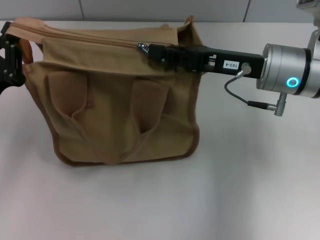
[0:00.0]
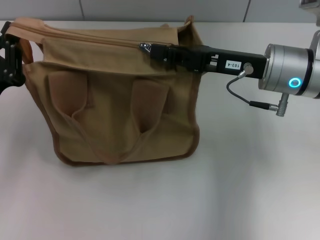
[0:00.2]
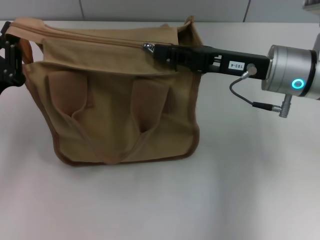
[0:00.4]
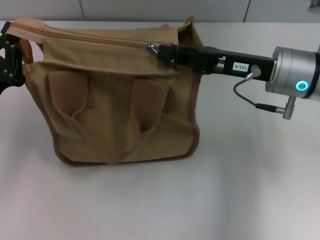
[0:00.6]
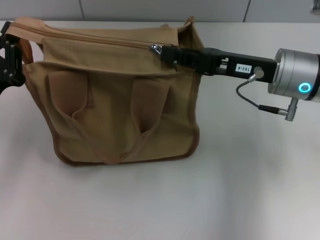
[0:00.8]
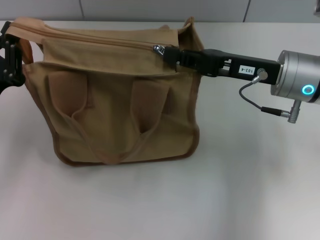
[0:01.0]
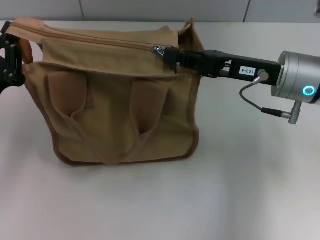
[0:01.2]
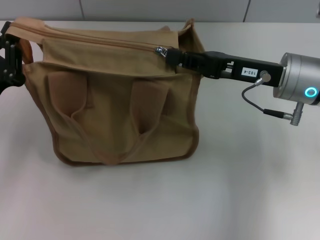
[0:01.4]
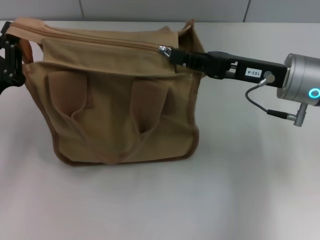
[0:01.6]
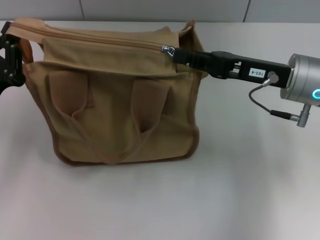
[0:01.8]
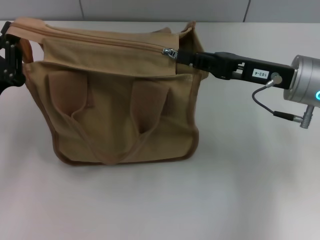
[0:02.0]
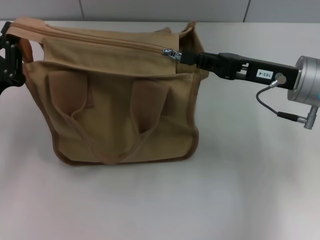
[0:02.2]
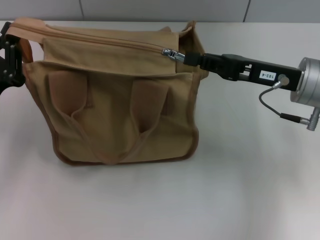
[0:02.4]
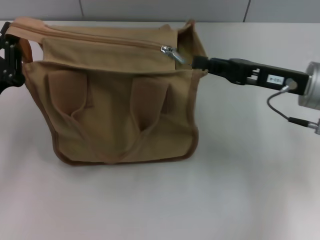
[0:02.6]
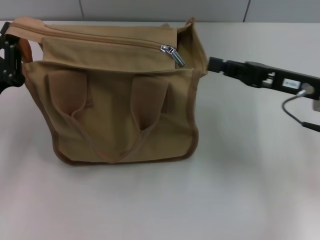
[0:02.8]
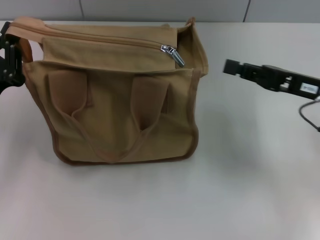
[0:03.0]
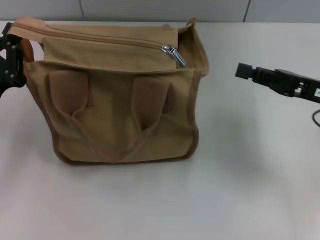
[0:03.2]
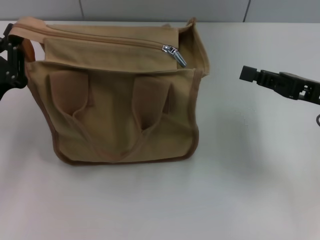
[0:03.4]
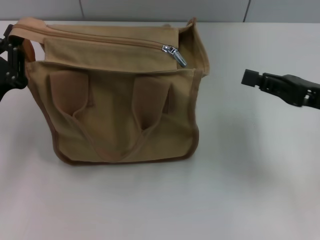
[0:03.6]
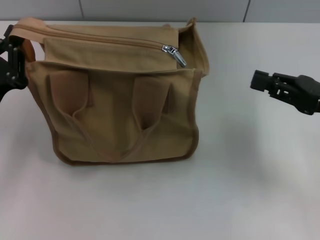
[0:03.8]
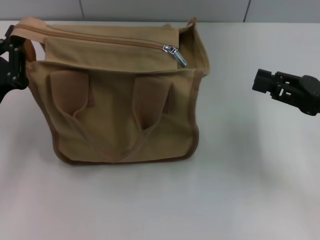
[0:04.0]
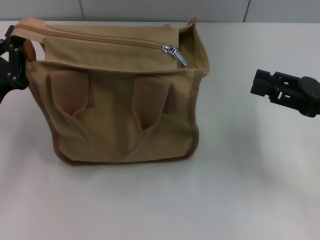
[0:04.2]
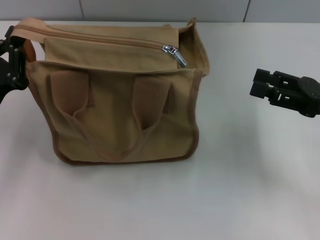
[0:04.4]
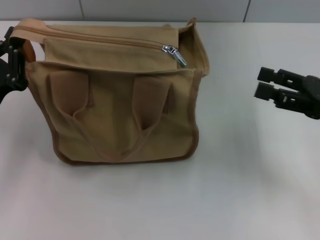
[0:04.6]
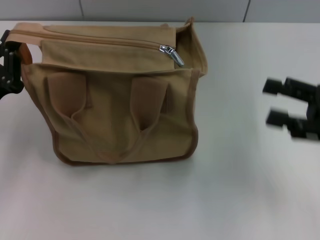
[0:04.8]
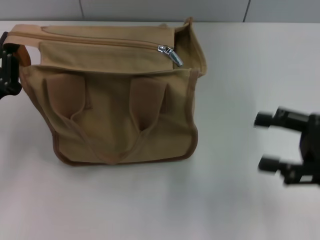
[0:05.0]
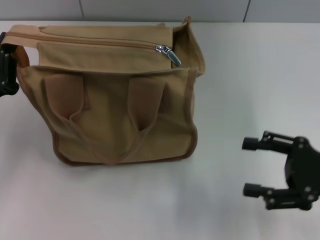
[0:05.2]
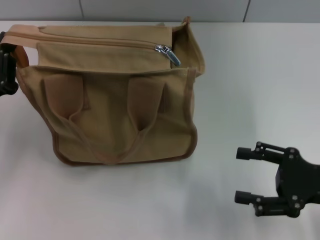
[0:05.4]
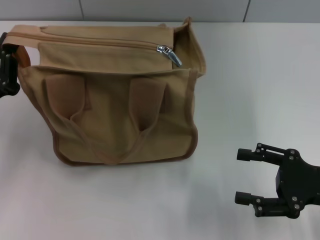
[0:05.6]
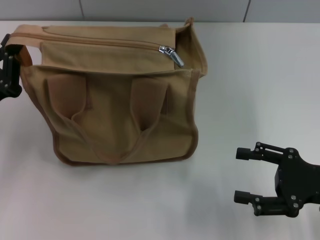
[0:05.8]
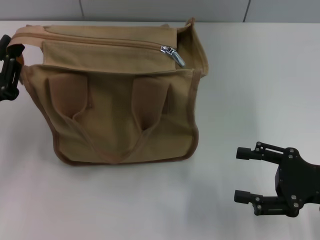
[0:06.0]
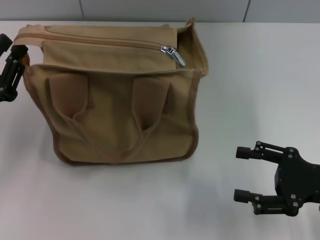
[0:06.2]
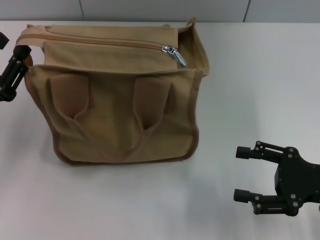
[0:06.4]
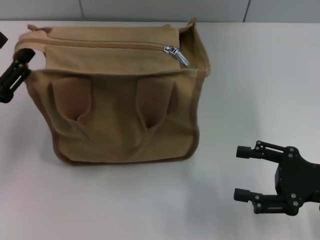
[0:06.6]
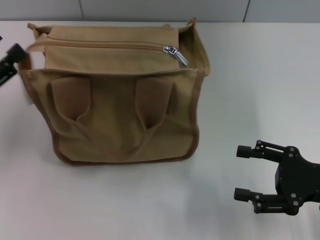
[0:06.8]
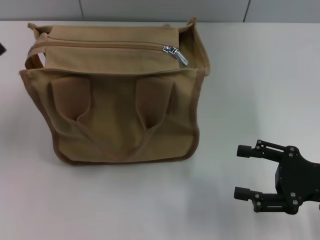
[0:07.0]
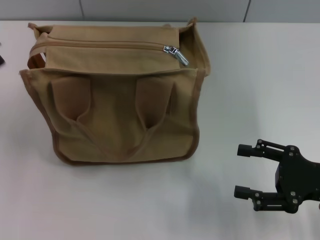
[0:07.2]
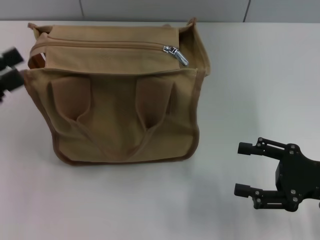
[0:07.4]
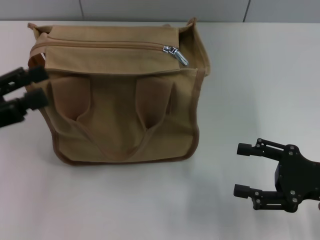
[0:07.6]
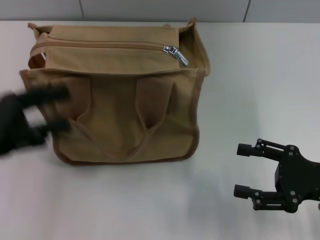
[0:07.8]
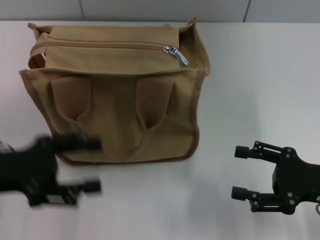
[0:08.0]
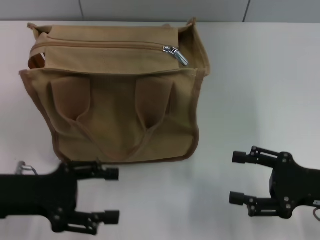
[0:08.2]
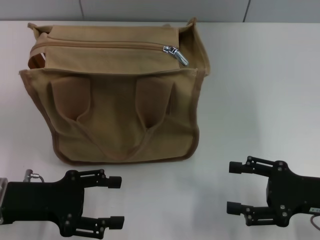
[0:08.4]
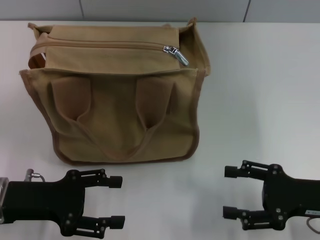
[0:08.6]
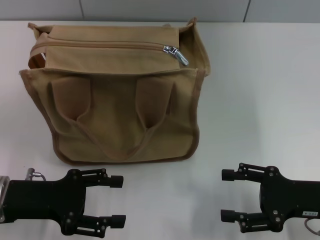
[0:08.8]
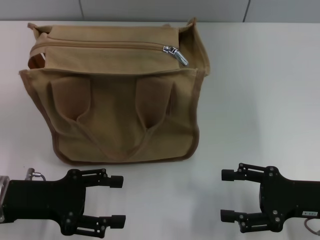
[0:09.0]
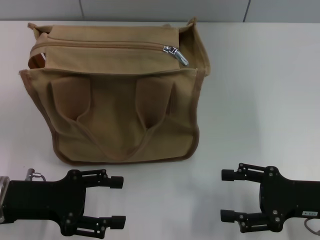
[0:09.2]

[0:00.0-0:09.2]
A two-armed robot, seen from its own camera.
Step, 0:00.0 to 0:02.4: Pull up the zipper with your right hand.
Step, 0:02.8 to 0:06.8: Grab the zipper with your left hand.
0:00.0 to 0:01.6: The grippers make only small movements.
0:01.6 to 0:03.0: The right gripper travels to the right by roughly 5 cm.
0:03.0 to 0:04.6: The right gripper ends up some 5 cm from where it was, and opens its fingers.
0:04.6 to 0:06.2: The right gripper is displaced backward and downward by roughly 10 cm.
0:06.2 to 0:07.6: The left gripper heads upward, covering roughly 5 cm, and opens.
0:07.6 to 0:09.2: The left gripper moves downward and to the right, approximately 10 cm.

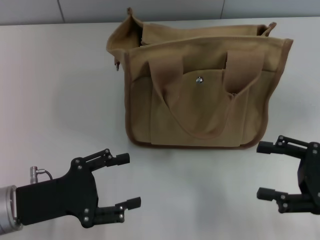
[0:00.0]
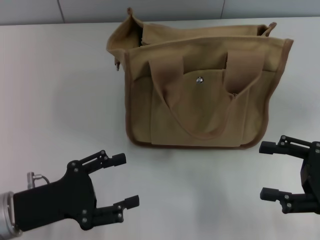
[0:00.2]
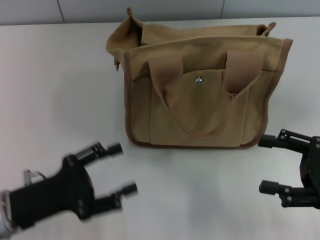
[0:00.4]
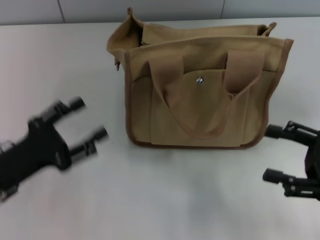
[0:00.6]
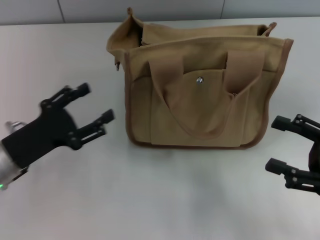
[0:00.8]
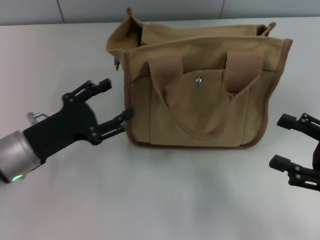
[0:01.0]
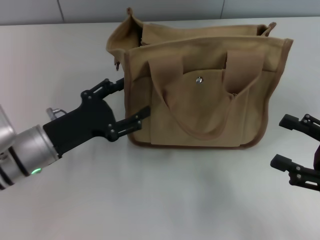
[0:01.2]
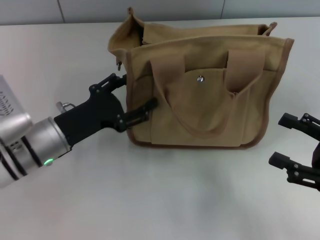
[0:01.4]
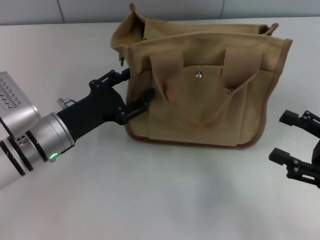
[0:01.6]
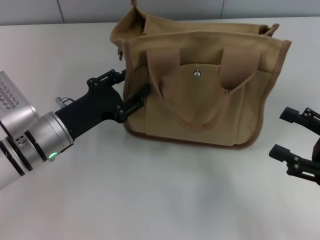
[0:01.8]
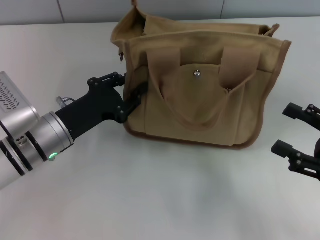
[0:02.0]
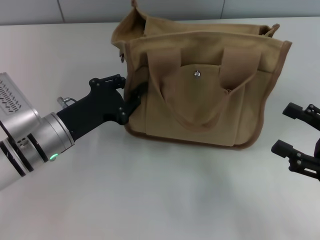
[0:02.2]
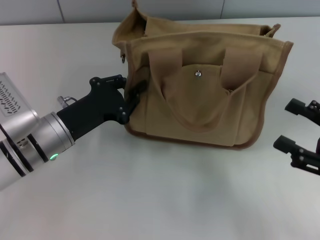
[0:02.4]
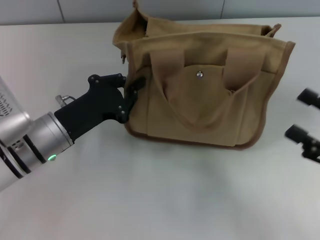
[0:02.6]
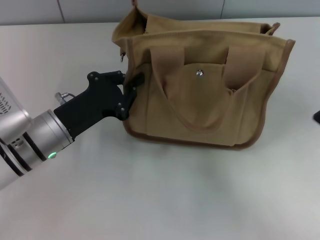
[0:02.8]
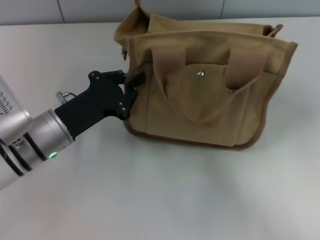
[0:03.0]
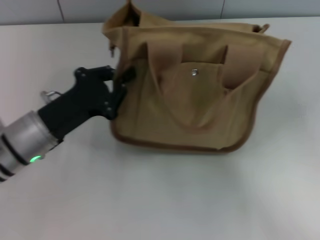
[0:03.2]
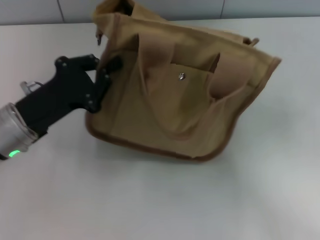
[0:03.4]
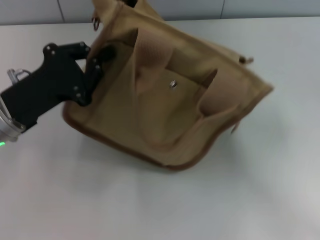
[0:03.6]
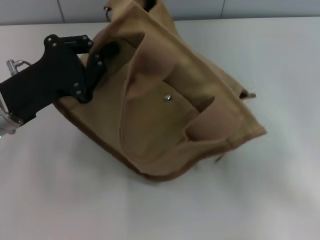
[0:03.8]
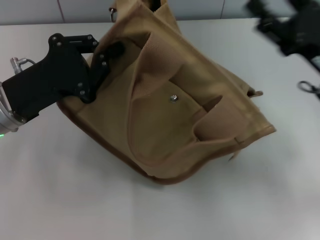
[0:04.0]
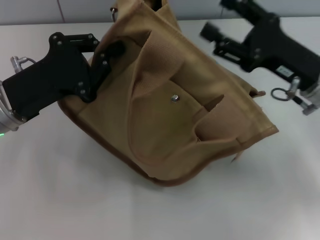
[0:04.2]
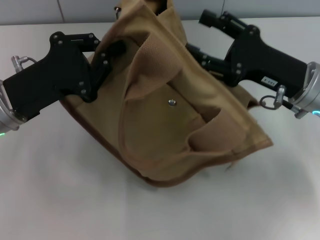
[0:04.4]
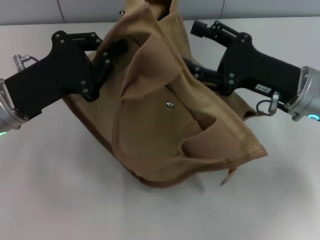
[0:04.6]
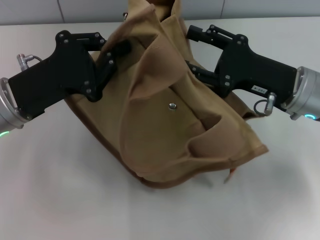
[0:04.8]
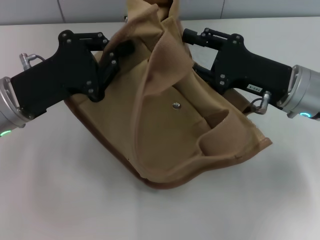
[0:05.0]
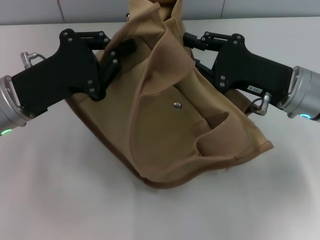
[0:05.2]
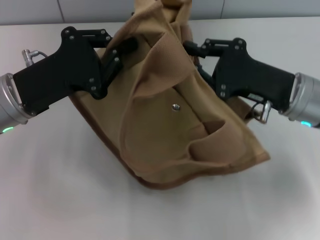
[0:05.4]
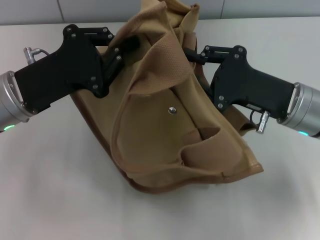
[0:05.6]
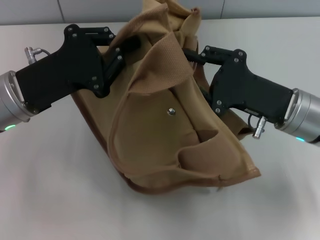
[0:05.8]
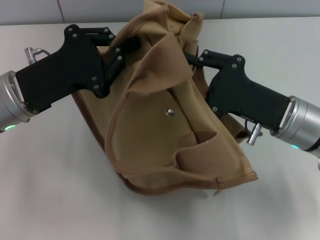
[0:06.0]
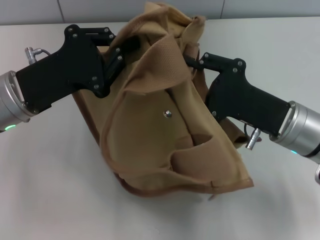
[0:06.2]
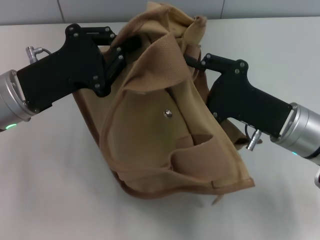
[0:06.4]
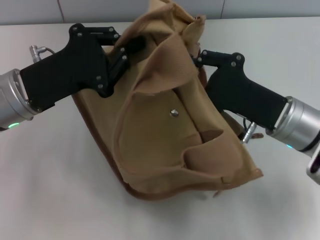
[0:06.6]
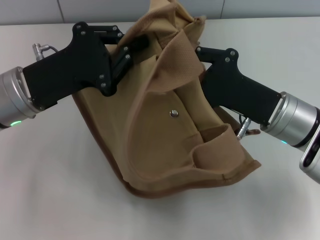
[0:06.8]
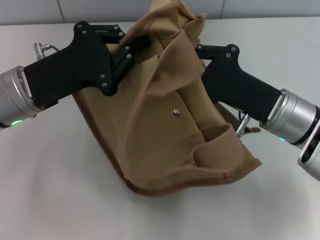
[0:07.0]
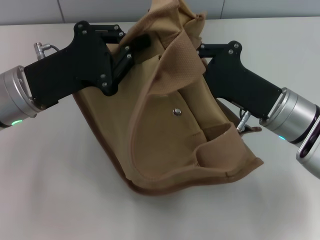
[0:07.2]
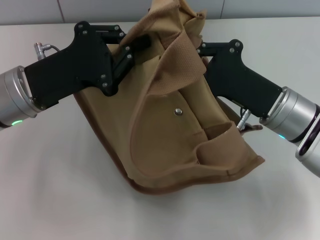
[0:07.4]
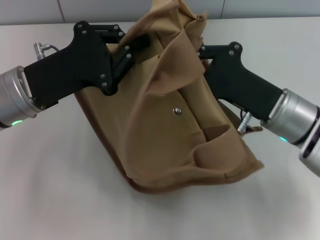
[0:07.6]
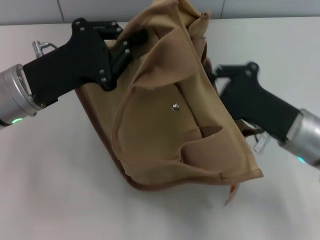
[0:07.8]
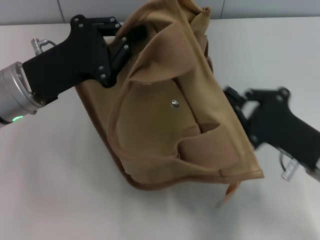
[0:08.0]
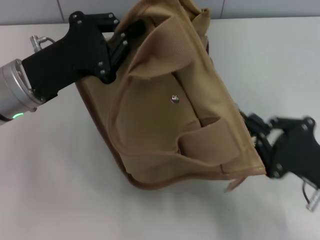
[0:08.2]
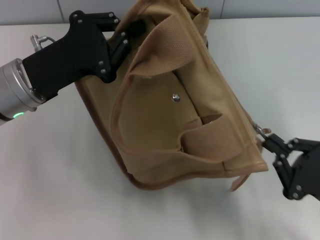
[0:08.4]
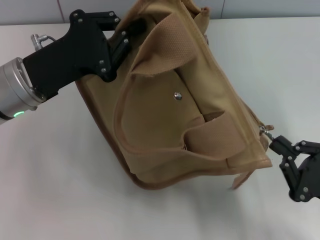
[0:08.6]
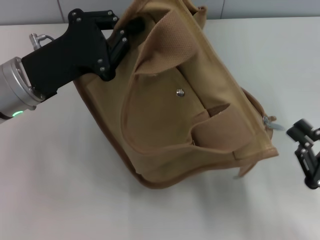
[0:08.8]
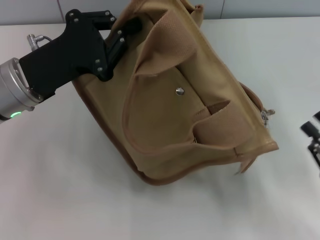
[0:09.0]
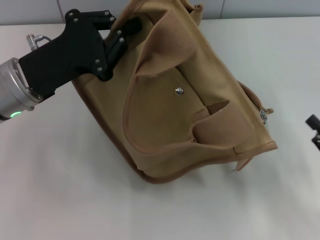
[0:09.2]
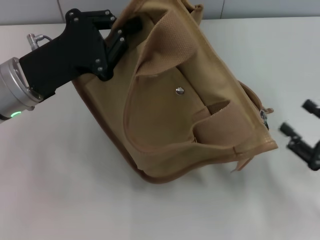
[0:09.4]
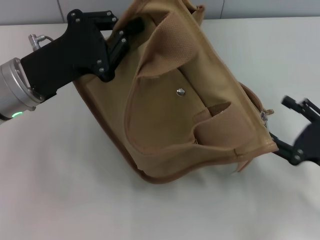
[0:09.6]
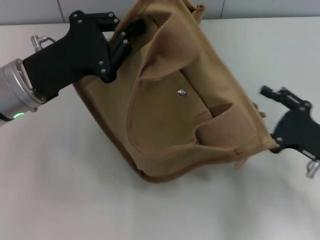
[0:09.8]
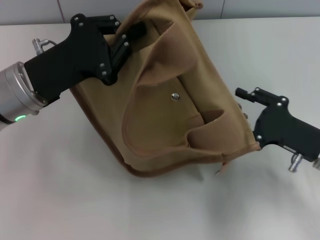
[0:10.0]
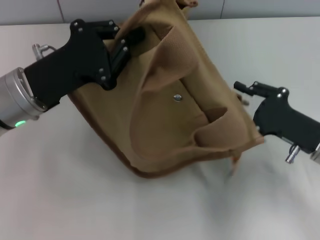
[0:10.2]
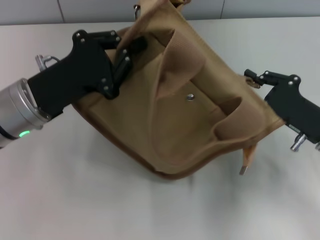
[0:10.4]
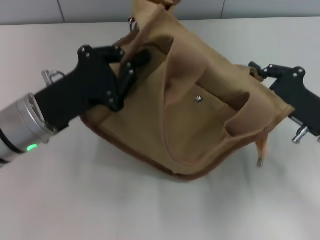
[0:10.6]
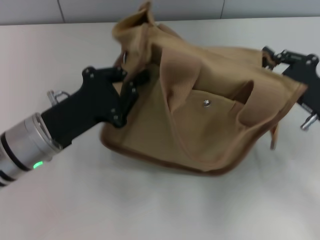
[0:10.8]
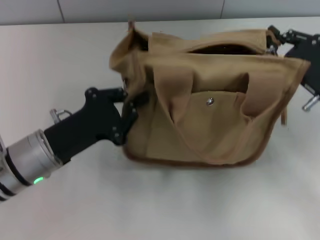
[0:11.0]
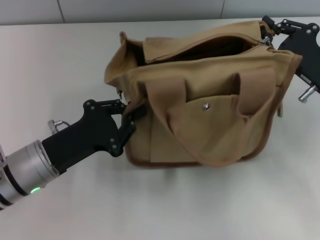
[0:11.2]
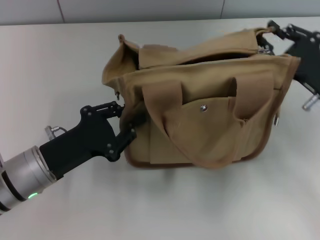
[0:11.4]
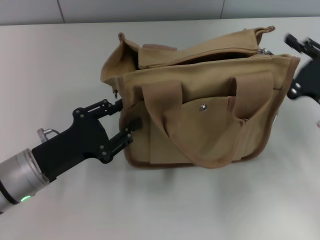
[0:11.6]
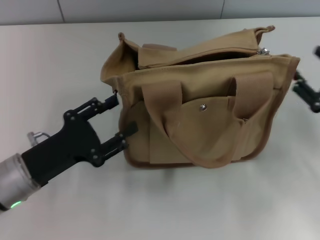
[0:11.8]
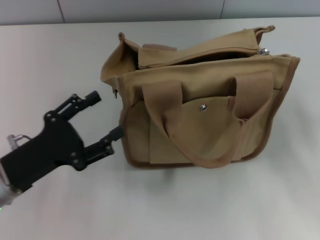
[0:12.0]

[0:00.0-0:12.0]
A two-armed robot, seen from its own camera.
Step, 0:00.0 to 0:08.8: Pull open the zipper with your right hand.
Step, 0:09.0 to 0:11.6: Grab the bag with your left hand.
0:00.0 to 0:01.6: The left gripper is displaced forward and to the right by approximately 10 cm.
0:01.6 to 0:03.0: The left gripper closes up.
0:03.0 to 0:04.4: The right gripper heads forward and to the left, covering roughly 20 cm. The left gripper moves upward, about 5 cm.
0:04.4 to 0:06.0: The right gripper closes its fingers.
0:06.0 to 0:07.6: The right gripper closes its fingers.
0:07.6 to 0:09.0: The right gripper is displaced backward and to the right by about 20 cm.
0:09.0 to 0:10.4: The right gripper moves forward, some 10 cm, and opens.
0:10.4 to 0:12.0: The right gripper heads to the right, covering approximately 10 cm; the left gripper is displaced backward and downward by roughly 10 cm, and opens.

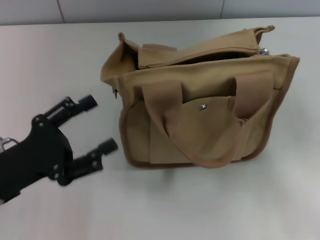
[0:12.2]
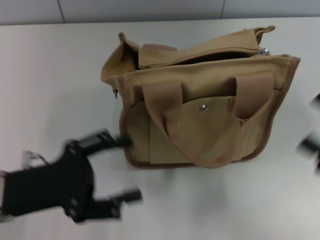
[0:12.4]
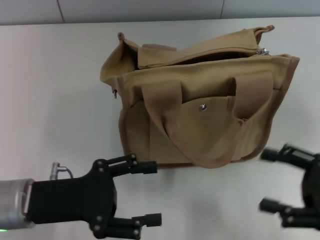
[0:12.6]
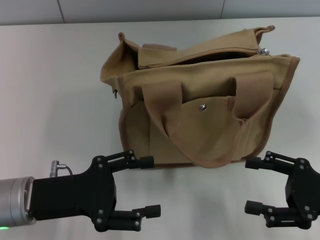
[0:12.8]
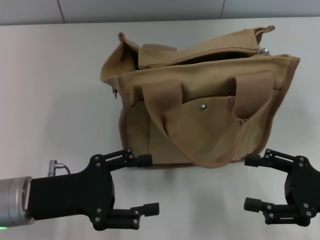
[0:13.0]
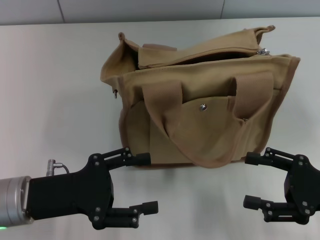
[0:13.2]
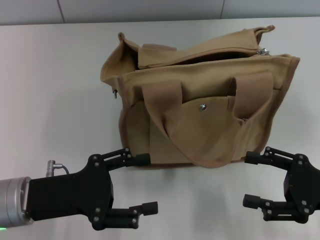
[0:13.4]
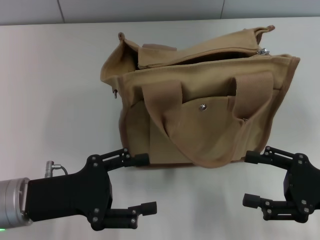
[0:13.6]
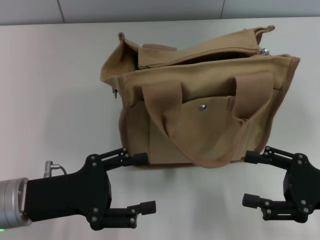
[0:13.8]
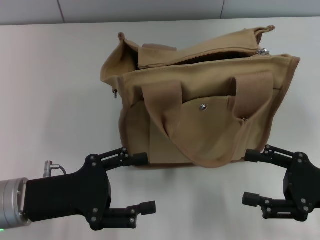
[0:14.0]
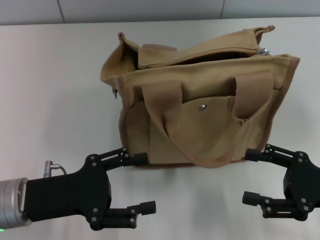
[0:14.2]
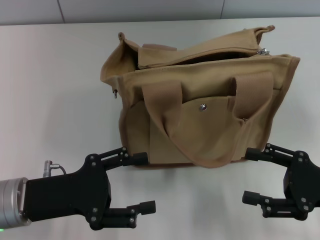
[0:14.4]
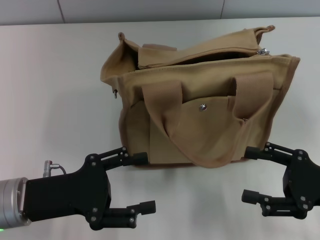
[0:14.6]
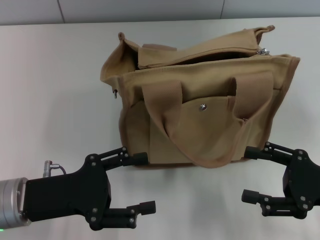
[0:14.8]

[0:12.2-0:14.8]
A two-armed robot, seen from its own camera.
0:12.2 to 0:13.4: The right gripper goes approximately 5 cm to the left.
0:13.4 to 0:14.8: Both grippers stay put.
